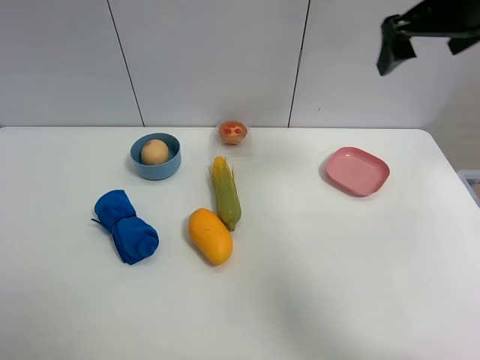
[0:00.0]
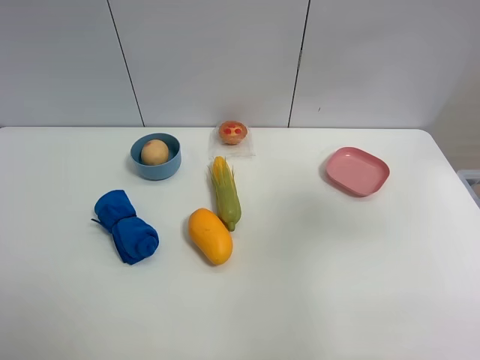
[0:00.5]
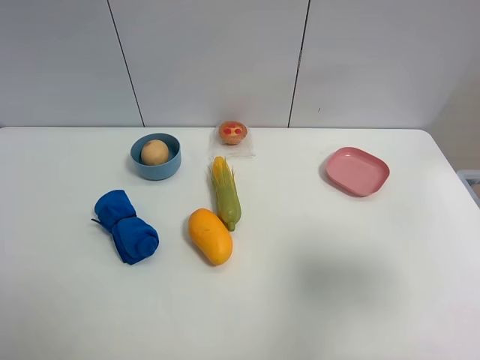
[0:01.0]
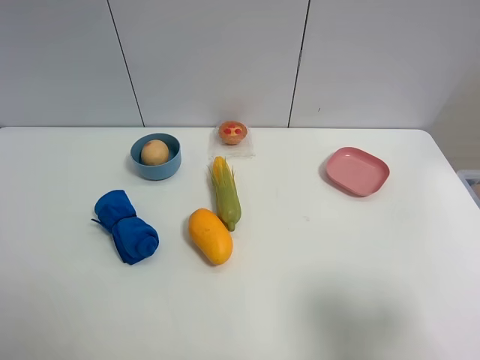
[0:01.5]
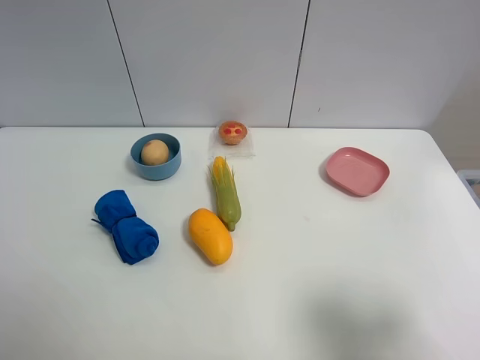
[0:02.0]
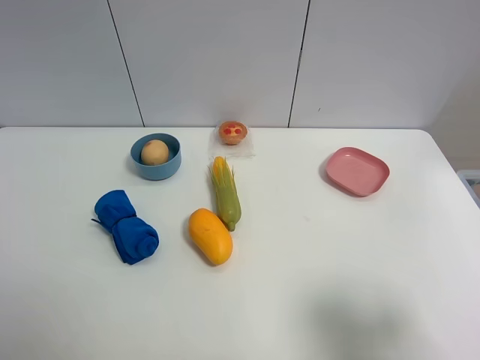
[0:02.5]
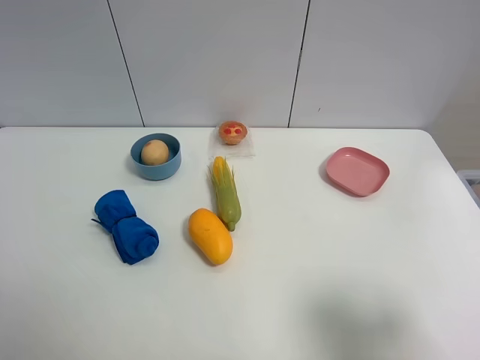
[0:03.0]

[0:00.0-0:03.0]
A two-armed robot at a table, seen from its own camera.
Task of the whole recording: the gripper move the object.
0:00.0 to 0:01.5: The right gripper moves backward, approximately 30 cm.
0:01.5 to 0:03.0: Both grippers stay about where they are.

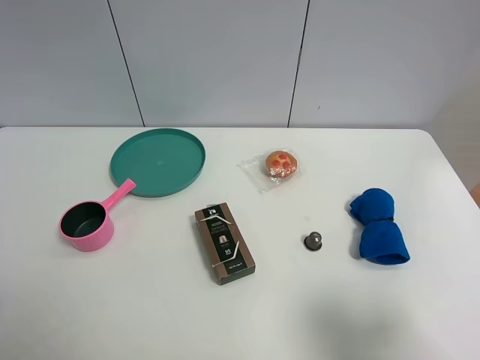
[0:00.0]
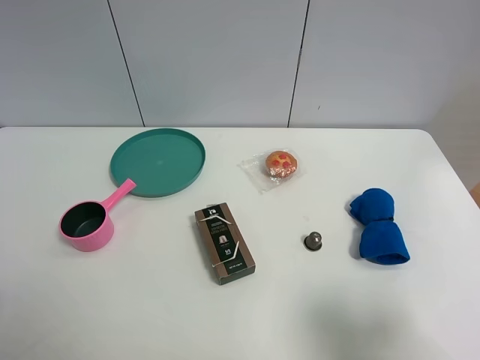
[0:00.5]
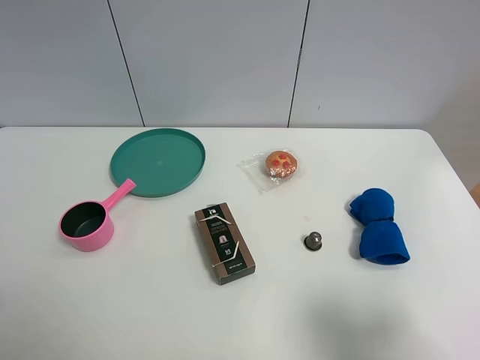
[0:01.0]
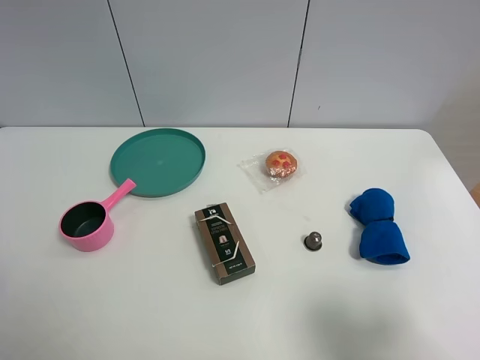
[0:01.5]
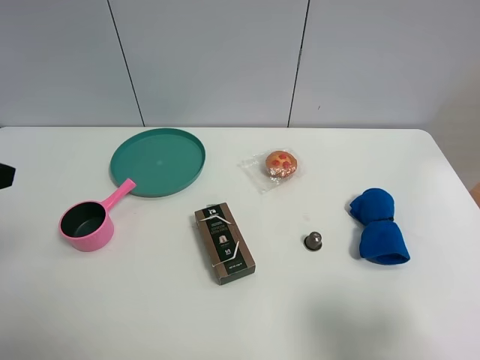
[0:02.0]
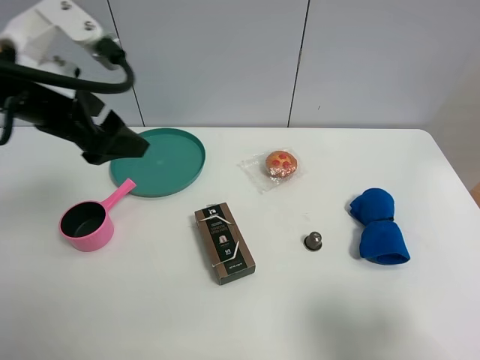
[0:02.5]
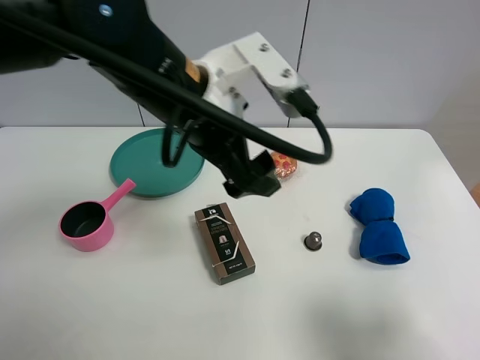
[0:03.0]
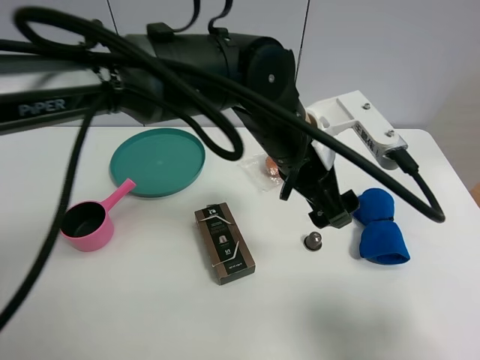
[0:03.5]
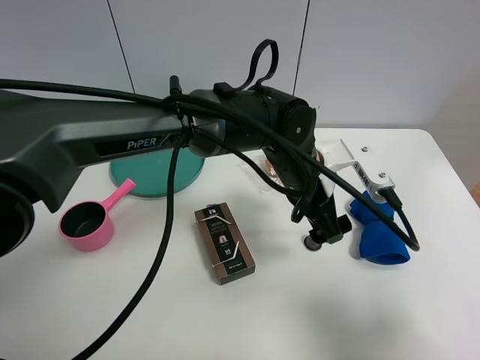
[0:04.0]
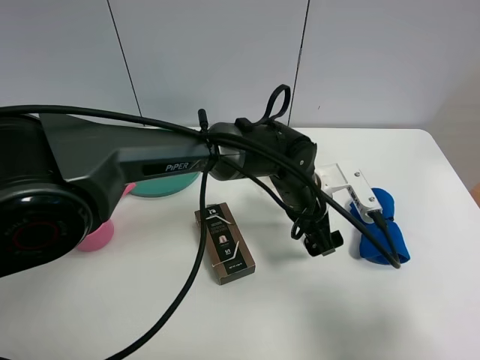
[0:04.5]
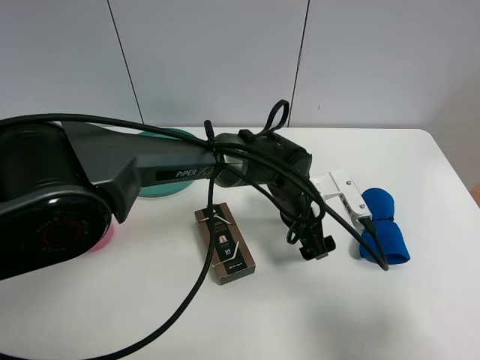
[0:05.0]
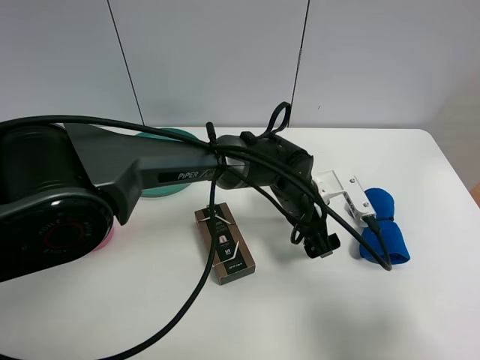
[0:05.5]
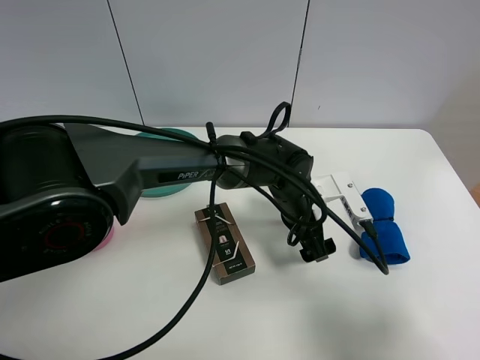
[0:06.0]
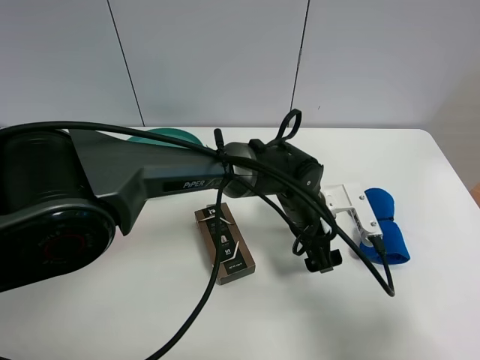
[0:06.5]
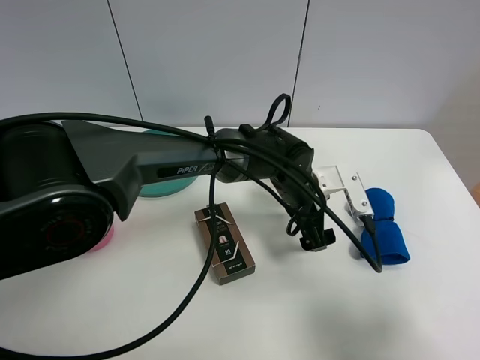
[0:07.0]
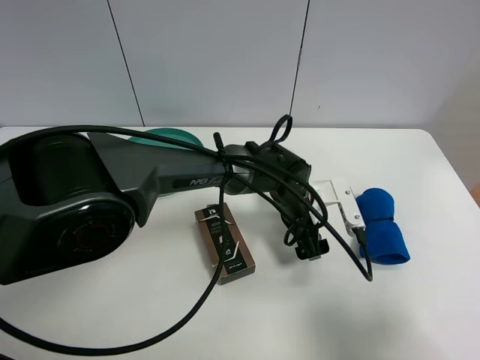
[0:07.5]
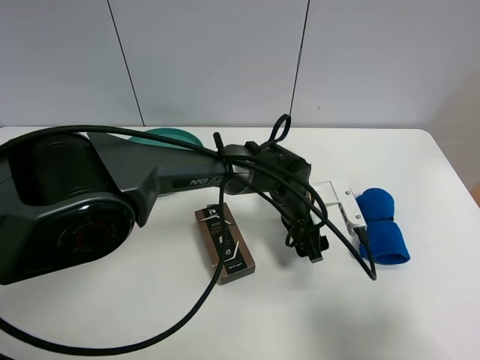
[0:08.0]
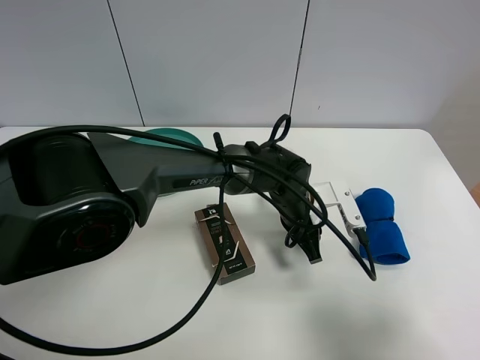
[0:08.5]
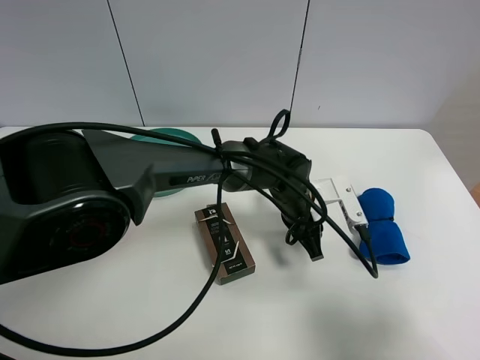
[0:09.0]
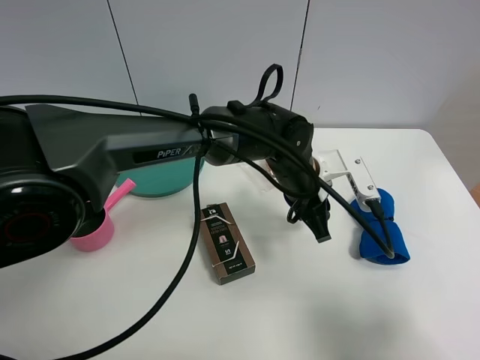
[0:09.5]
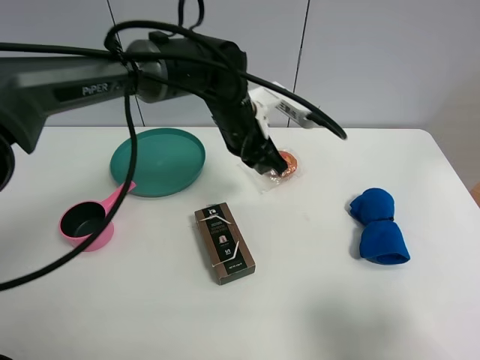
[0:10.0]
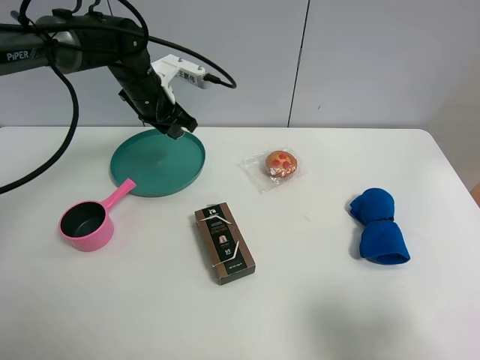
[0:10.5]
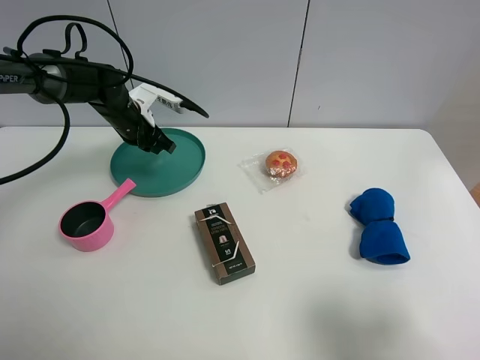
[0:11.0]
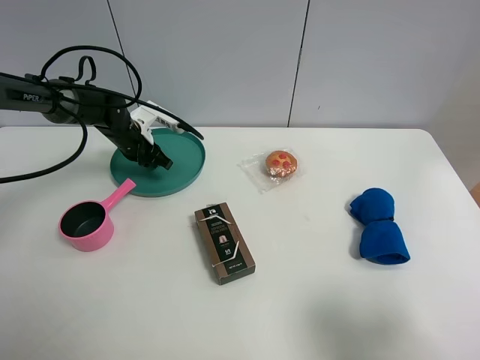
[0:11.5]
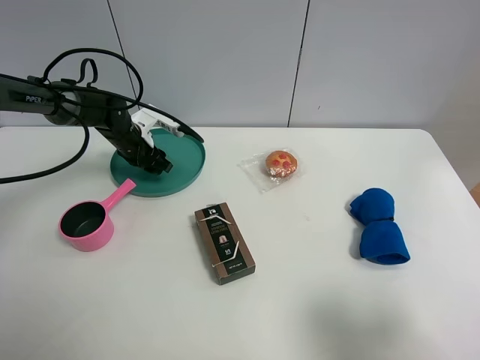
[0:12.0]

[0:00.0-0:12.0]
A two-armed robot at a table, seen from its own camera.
Task of the whole recording: the gripper move the object.
Step, 0:00.0 to 0:08.0: Grasp the coffee capsule with the left gripper.
0:02.0 to 0:04.0: The left gripper travels to the right by roughly 40 cm.
0:04.0 to 0:06.0: The left gripper shifts about 10 cm downward.
0:06.0 to 0:08.0: The grippers make only small movements.
0:08.0 to 0:10.0: The left gripper heads upward, to the left and forward, covering approximately 15 cm, and closes its fingers.
0:10.0 to 0:12.0: The left gripper travels to the left, downward and forward by approximately 25 cm, and opens.

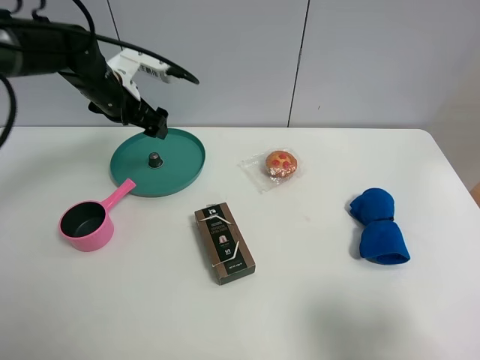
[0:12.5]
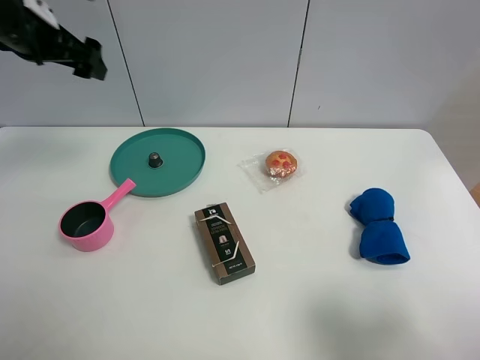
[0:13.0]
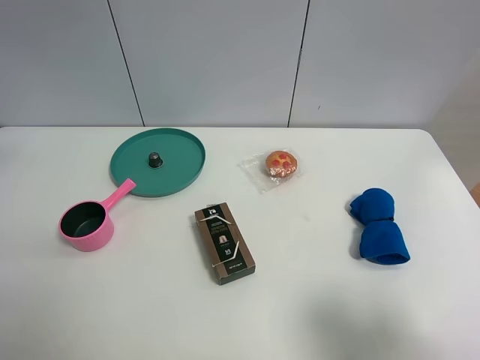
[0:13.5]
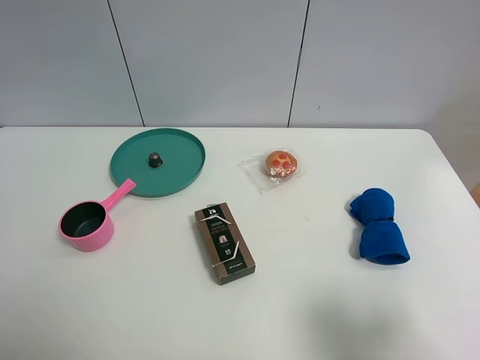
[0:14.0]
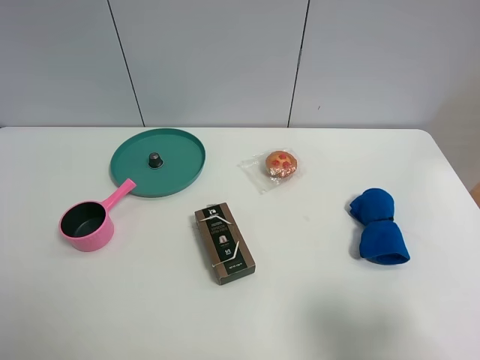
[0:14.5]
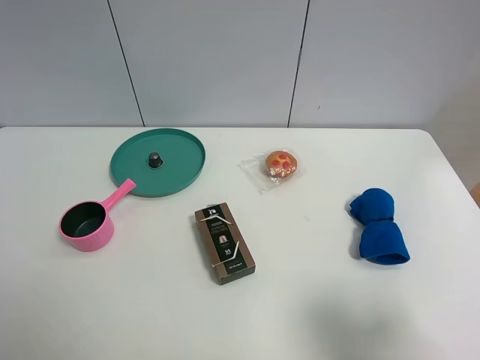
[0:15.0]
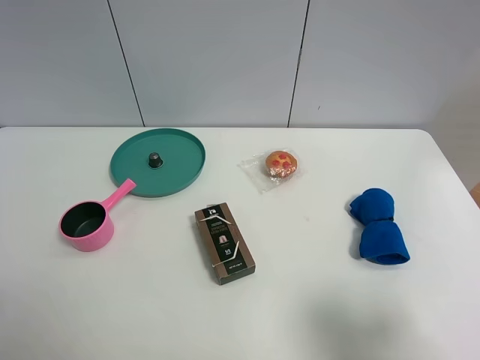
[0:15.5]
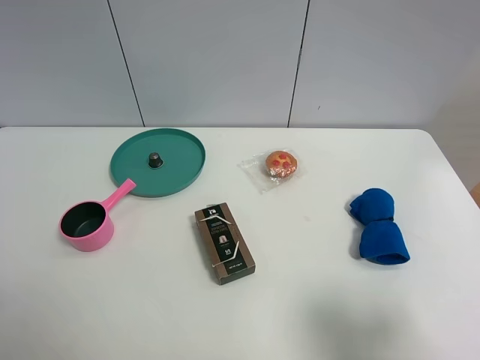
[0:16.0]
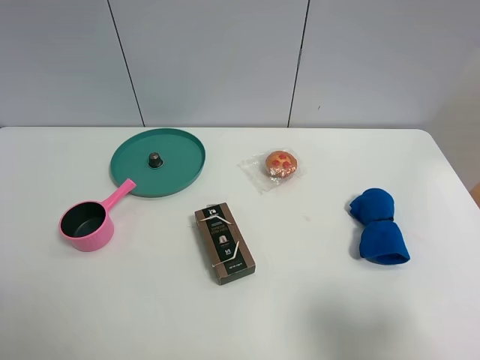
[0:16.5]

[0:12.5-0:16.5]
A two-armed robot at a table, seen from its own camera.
Task of the whole recording: the gripper move the object.
0:12.5 to 0:14.5: The left gripper travels backward by roughly 40 cm.

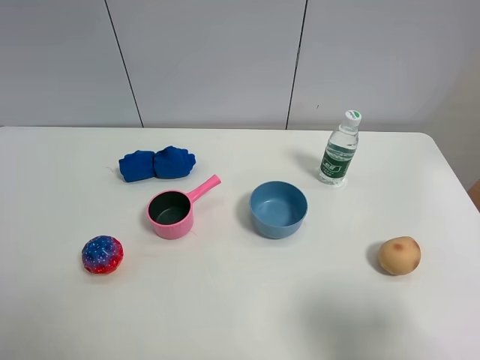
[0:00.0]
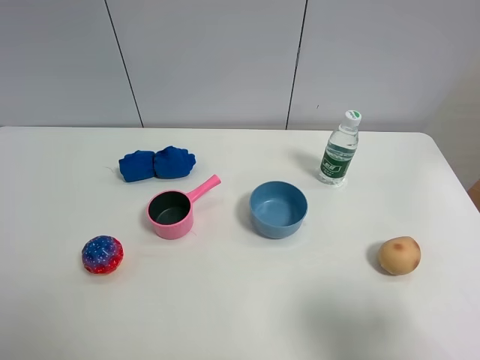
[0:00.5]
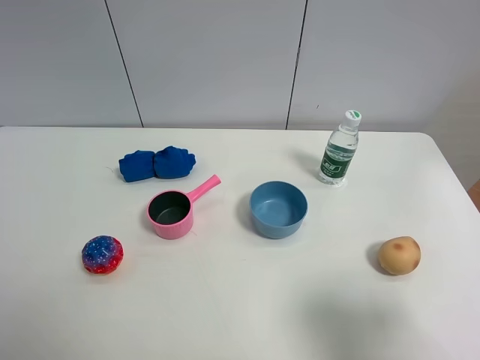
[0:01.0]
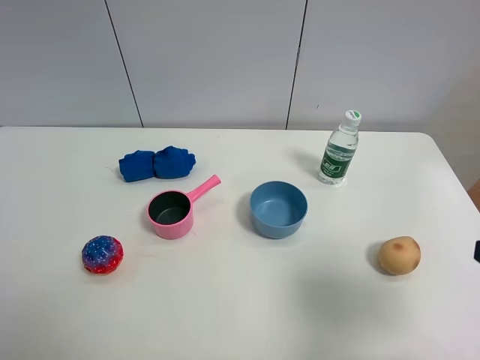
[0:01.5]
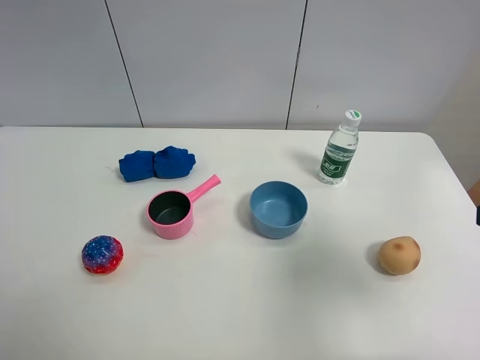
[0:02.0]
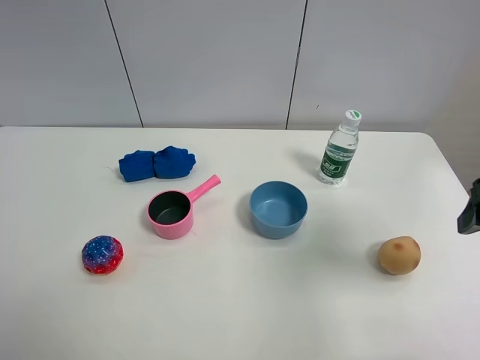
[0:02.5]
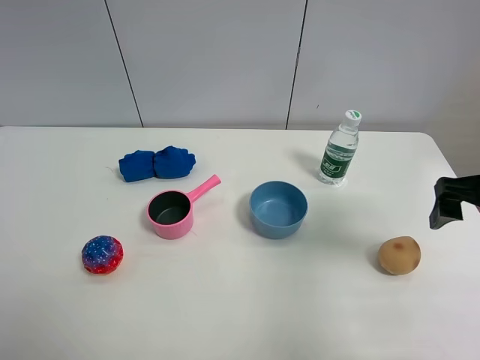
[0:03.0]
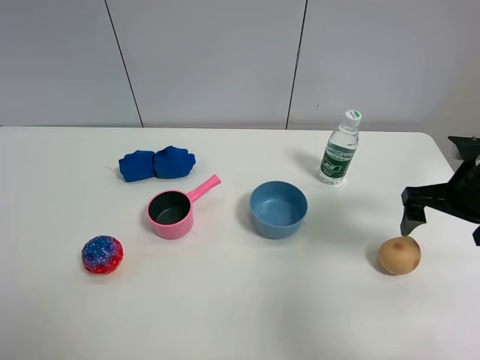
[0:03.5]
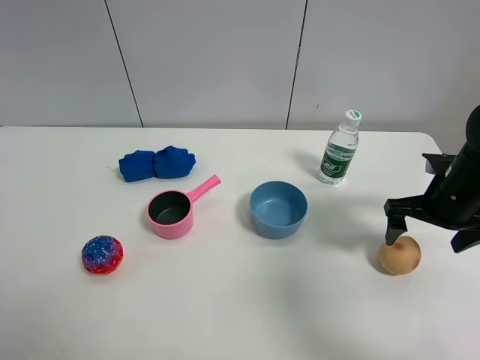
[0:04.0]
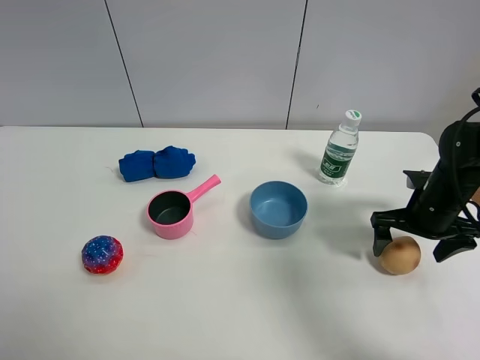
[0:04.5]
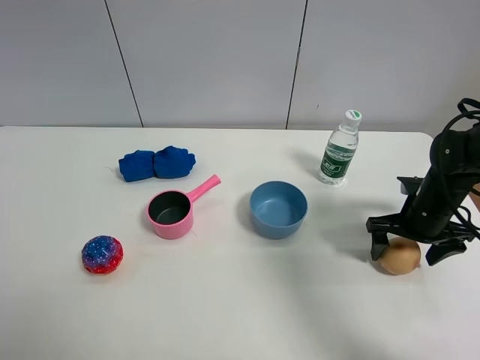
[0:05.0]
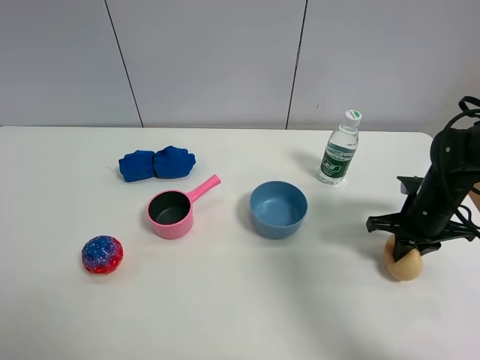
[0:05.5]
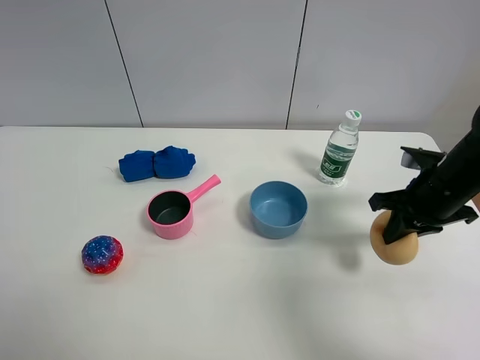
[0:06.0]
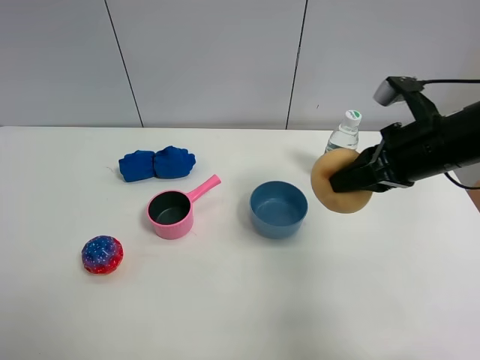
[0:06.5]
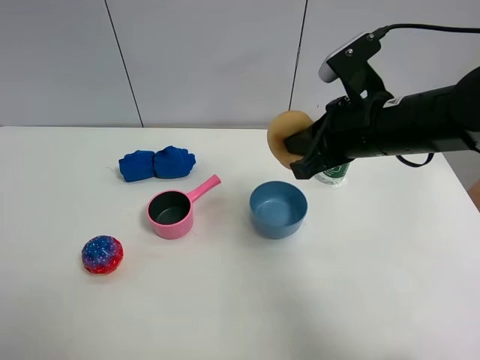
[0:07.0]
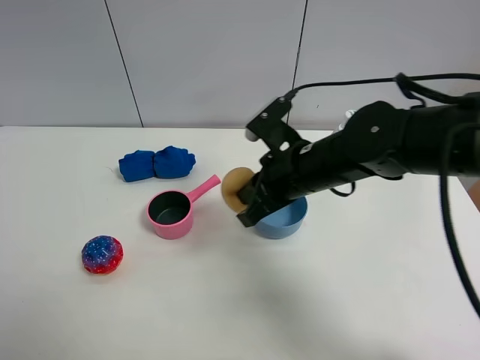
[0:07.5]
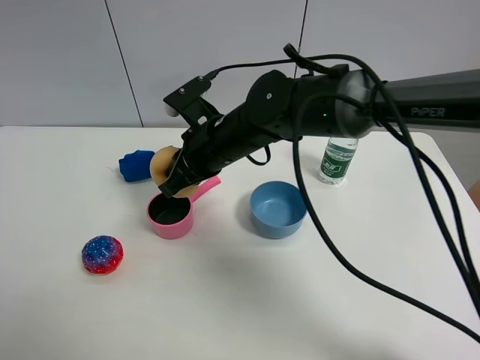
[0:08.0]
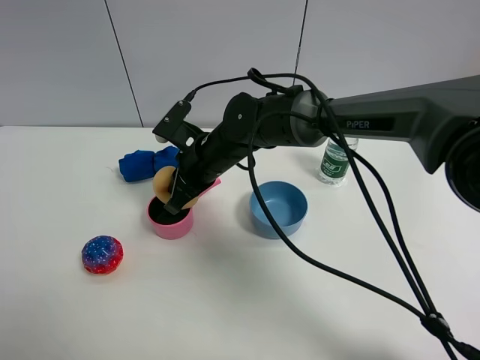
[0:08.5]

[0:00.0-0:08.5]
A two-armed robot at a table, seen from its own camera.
Task of the whole recording: the gripper move the object.
Step, 0:00.0 to 0:05.0: Grasp the egg tart with the right gripper.
0:00.0 to 0:02.0: The right gripper goes about 10 cm forward and upward.
0:02.0 to 0:04.0: The right gripper moves downward and forward, approximately 20 cm.
0:04.0 to 0:06.5: The right gripper is displaced upward and to the left by roughly 15 cm, and closes its fingers.
0:06.5 to 0:08.5: The right gripper goes some 25 cm to the left and downward.
